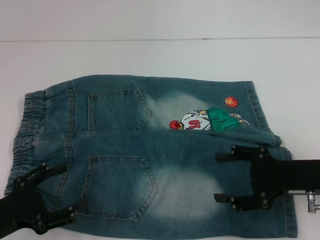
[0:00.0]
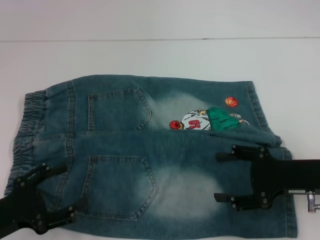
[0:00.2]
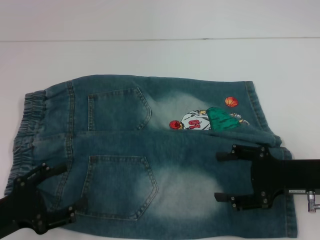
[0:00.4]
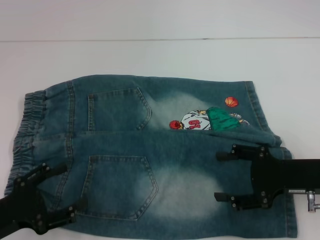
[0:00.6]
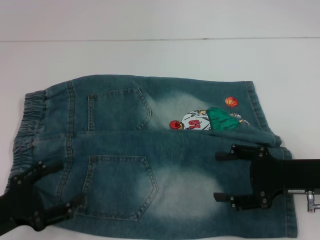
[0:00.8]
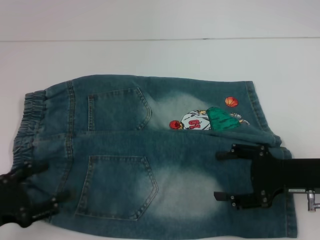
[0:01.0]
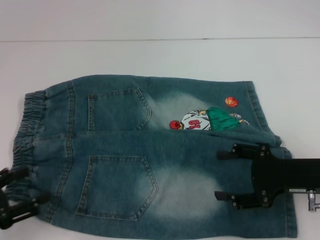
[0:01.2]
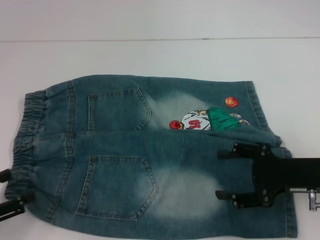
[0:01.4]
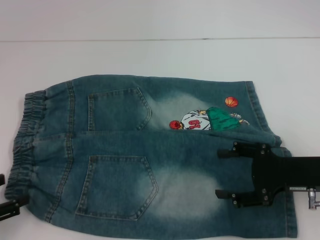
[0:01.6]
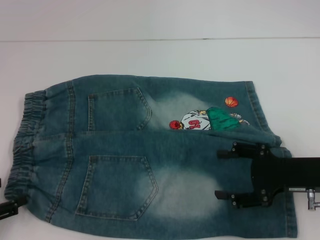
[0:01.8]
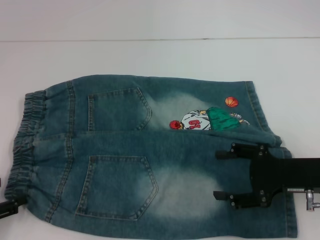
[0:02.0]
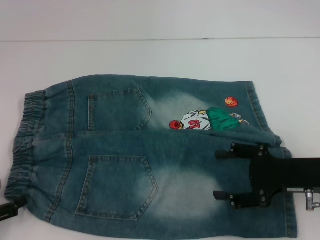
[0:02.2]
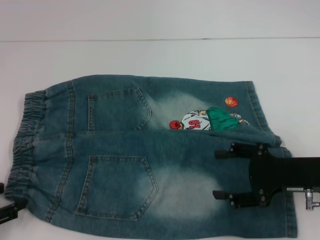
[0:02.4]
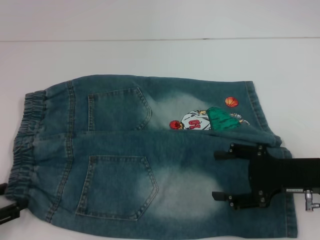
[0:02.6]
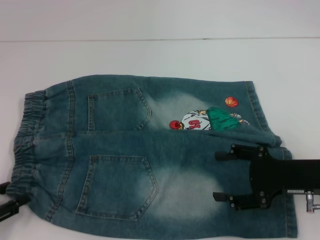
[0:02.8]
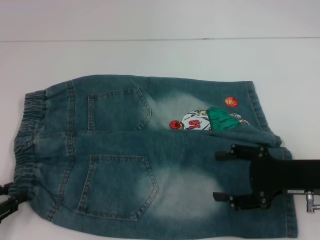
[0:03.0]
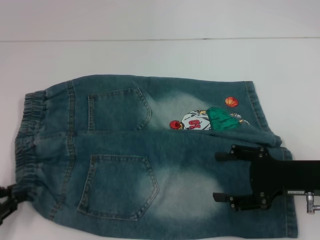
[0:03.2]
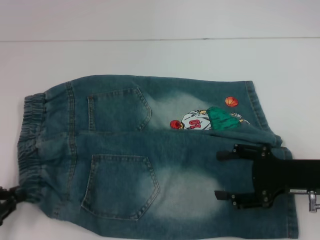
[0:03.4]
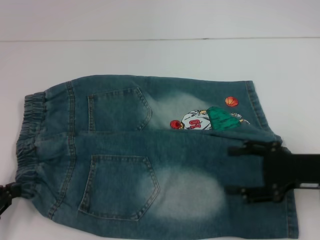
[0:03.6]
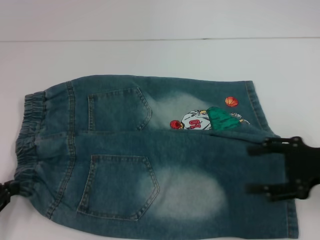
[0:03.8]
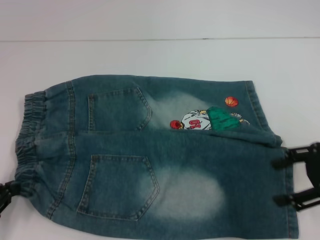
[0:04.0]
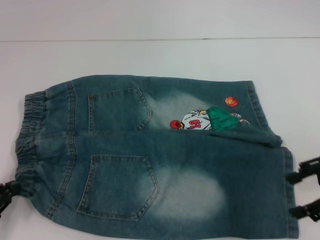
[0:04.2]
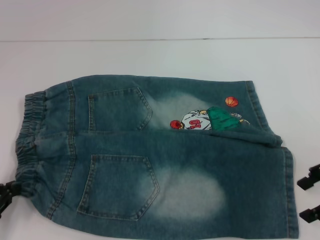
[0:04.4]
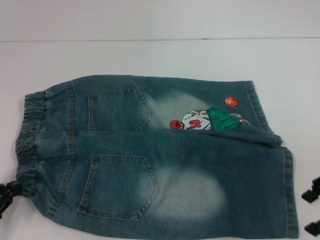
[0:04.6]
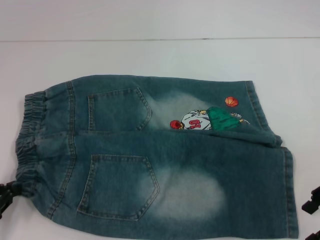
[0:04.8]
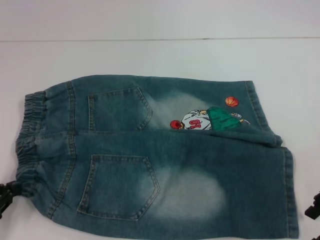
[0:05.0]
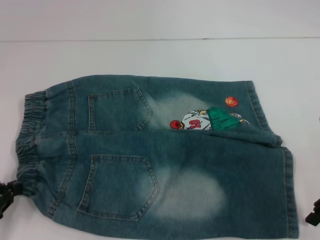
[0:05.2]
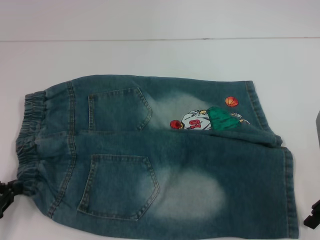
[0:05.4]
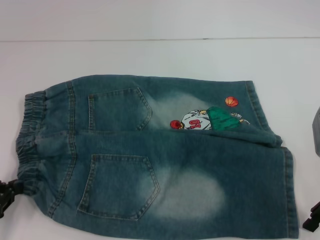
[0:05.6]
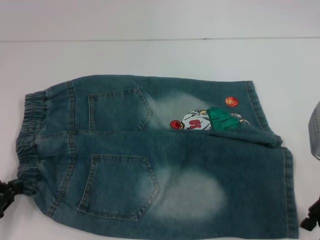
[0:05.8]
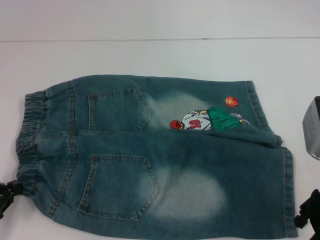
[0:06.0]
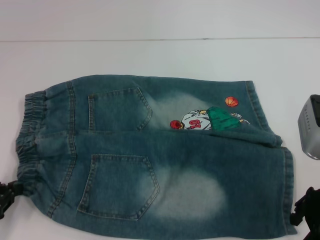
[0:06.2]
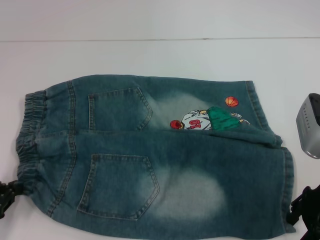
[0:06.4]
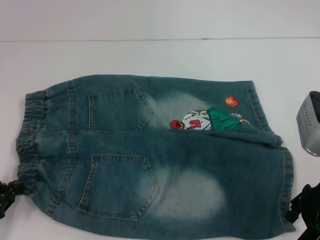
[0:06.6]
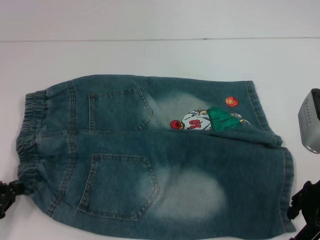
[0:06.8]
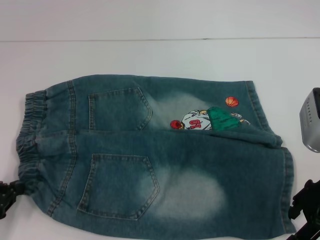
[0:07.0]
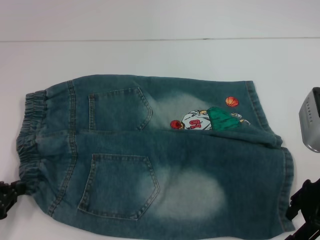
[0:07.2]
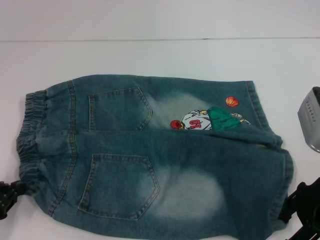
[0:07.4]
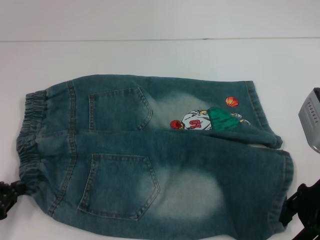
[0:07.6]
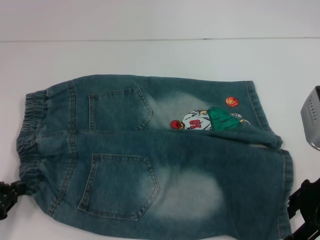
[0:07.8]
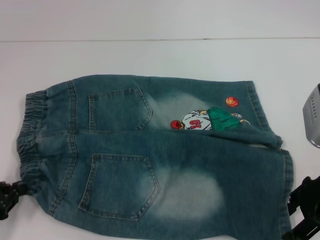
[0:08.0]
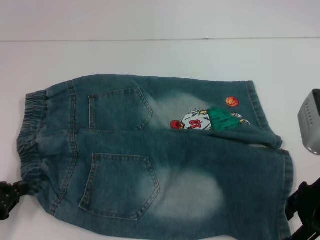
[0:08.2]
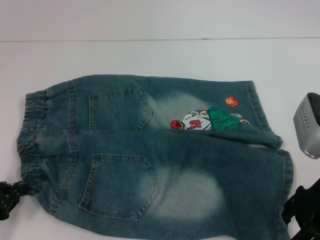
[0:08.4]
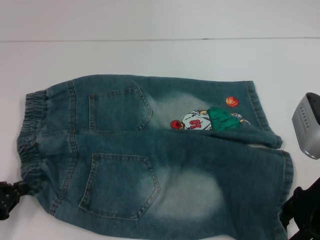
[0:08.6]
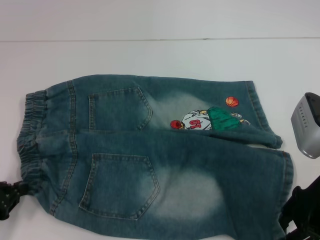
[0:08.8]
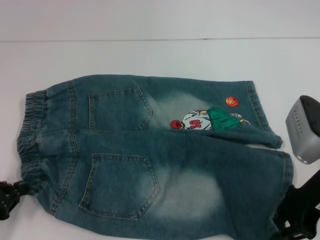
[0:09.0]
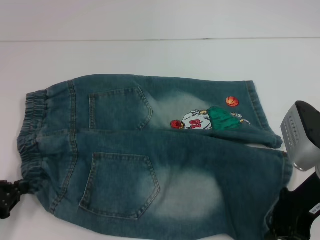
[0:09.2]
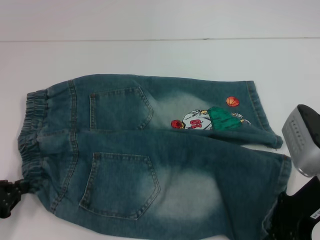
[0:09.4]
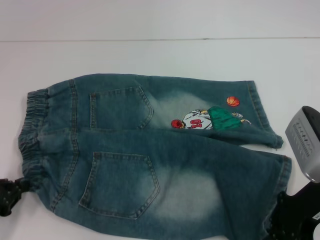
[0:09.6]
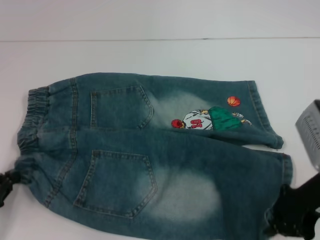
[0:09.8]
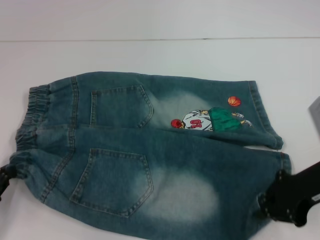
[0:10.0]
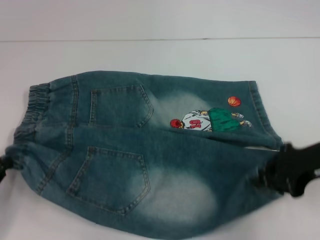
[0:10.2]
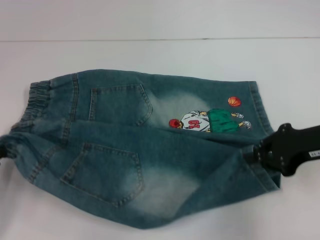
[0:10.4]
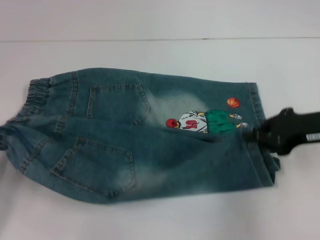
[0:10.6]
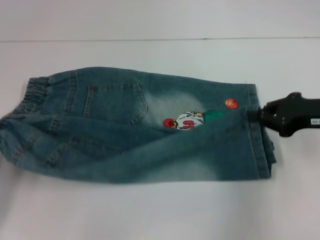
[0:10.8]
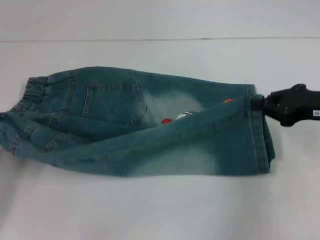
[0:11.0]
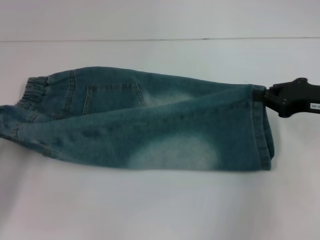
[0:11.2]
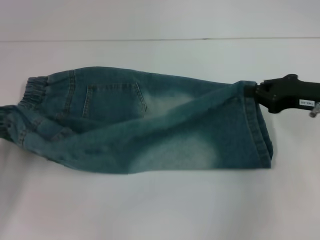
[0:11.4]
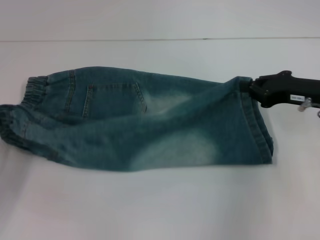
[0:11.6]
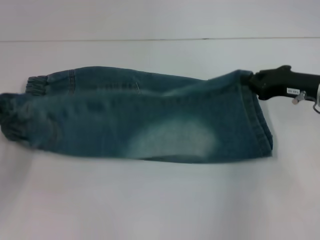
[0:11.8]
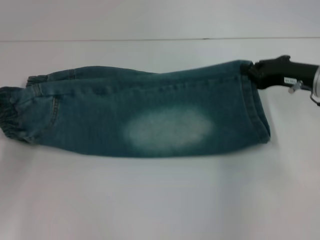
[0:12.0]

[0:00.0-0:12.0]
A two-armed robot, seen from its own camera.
Step, 0:00.0 to 0:03.4: Hold the lower left waistband with your left hand.
Step, 0:03.6 to 0:09.4: Grab the lower right pant leg with your right hand.
0:00.0 to 0:01.6: The left gripper shifts roughly 5 cm to the left.
0:01.6 to 0:03.0: The left gripper closes.
0:03.0 to 0:04.4: The right gripper is displaced upward by approximately 10 cm. Meanwhile the left gripper closes up.
0:04.4 to 0:06.0: The right gripper is displaced to the left by roughly 5 cm.
0:06.0 to 0:07.6: The grippers move only a little.
0:07.6 to 0:09.0: The right gripper closes.
0:09.0 to 0:10.4: The right gripper closes up.
0:10.4 to 0:12.0: The two grippers go roughly 10 cm forward.

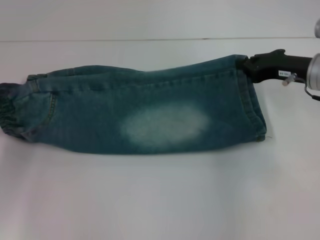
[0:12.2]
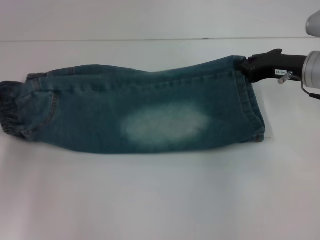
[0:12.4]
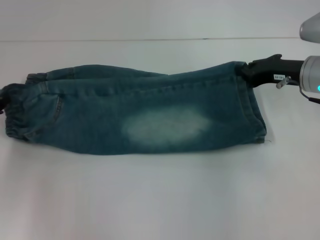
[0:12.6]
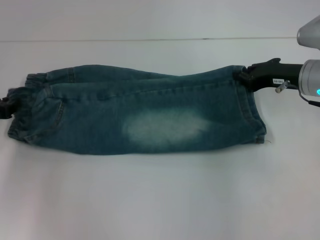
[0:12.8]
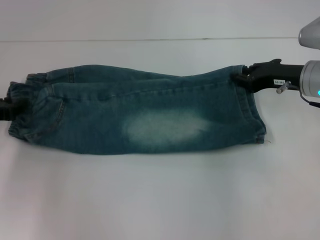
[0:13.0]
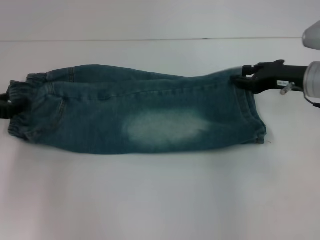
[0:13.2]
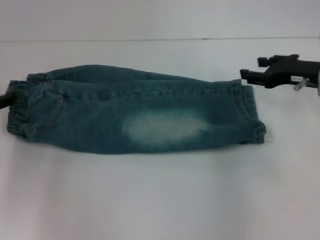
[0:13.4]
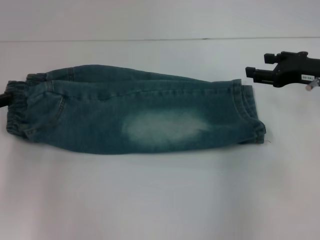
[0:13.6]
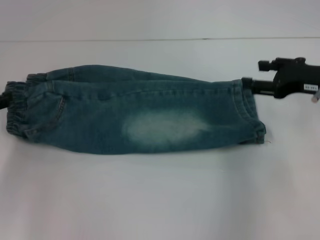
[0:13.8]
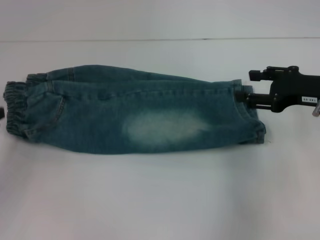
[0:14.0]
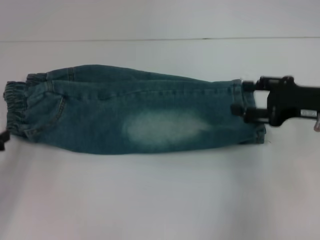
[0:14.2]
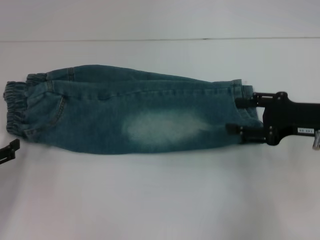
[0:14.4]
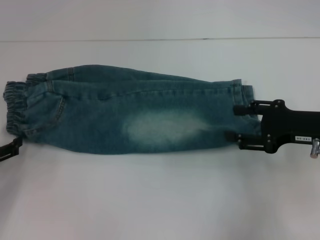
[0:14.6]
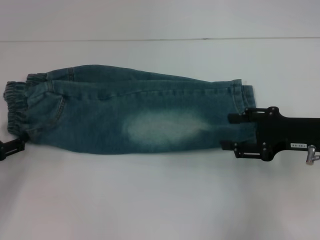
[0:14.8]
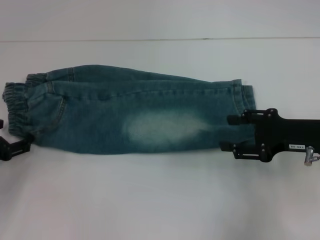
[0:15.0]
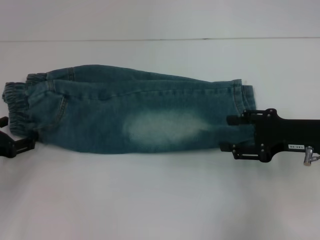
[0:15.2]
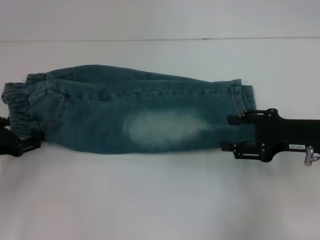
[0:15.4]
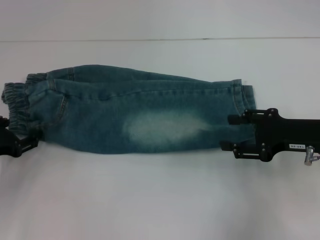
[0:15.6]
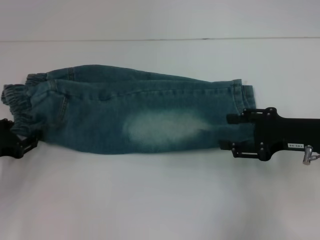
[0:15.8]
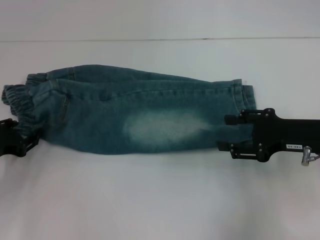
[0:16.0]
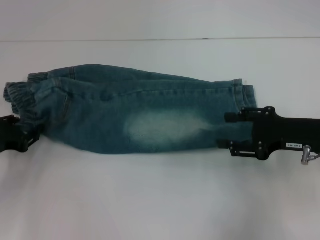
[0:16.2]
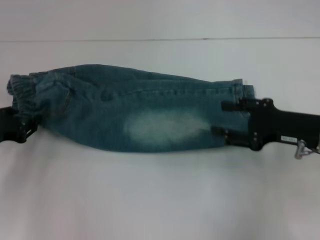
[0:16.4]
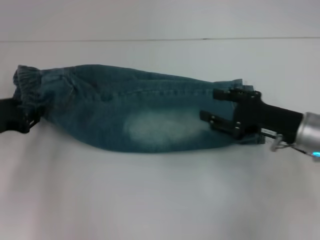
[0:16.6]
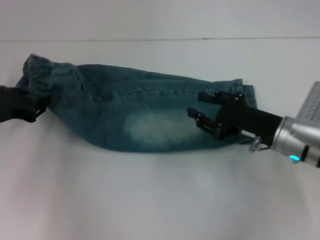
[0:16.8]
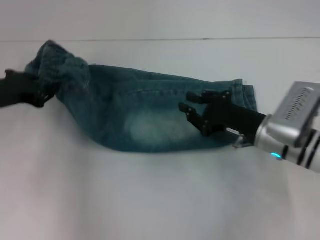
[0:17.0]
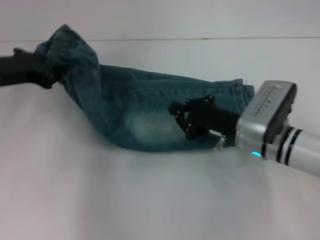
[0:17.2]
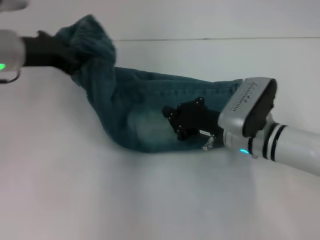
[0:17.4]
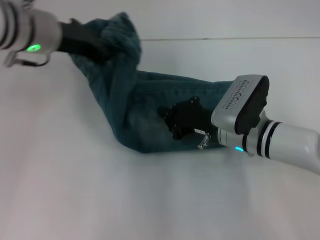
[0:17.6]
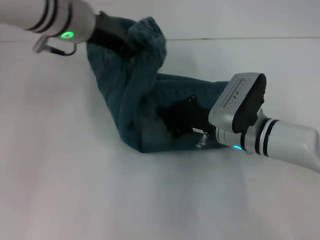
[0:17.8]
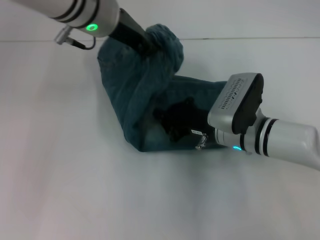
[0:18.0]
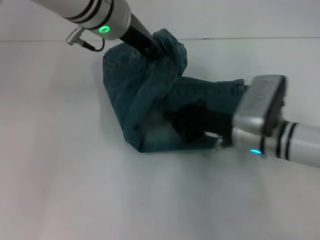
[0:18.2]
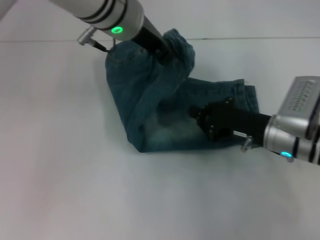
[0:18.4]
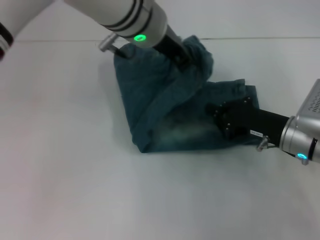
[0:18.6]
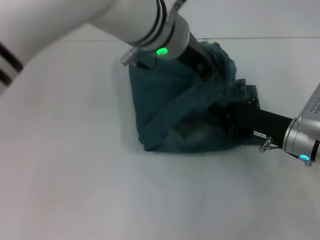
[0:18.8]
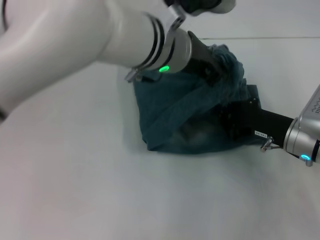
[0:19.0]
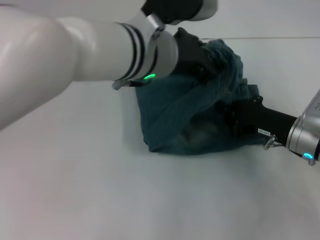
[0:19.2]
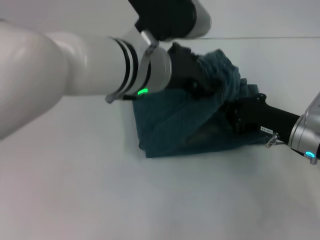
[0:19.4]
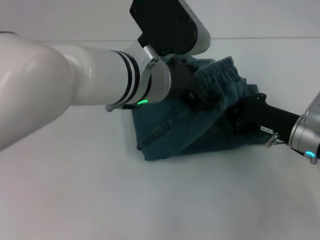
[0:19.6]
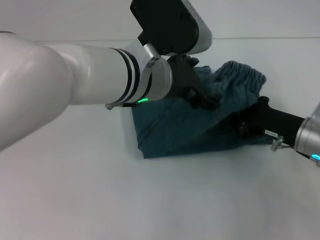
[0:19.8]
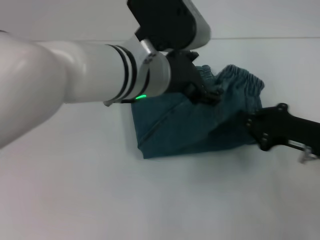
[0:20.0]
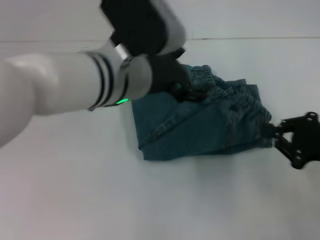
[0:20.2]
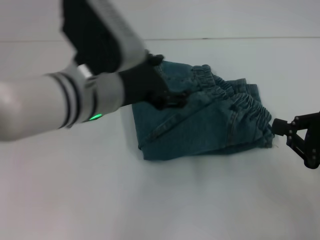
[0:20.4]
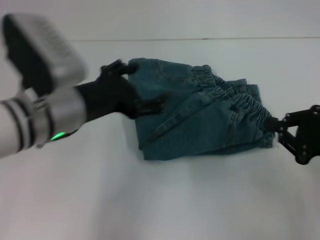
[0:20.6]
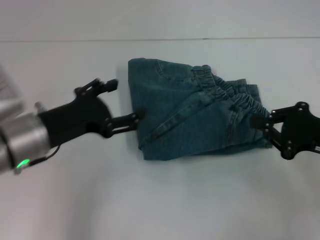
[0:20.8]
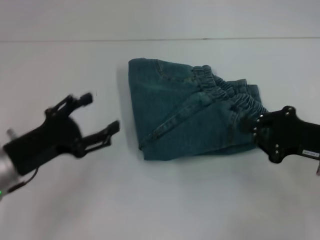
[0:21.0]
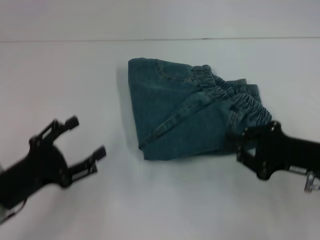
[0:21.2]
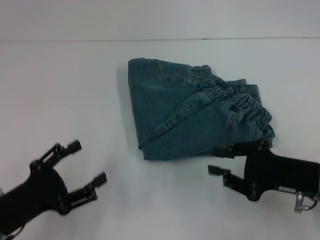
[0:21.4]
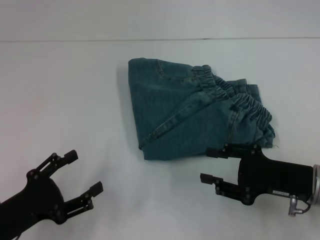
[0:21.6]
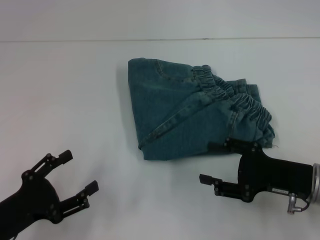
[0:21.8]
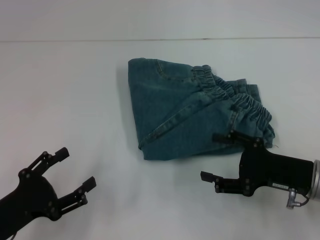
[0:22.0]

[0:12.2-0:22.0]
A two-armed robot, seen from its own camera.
Step, 0:13.4 to 0:13.8: Fold upward with your left hand.
Step, 0:14.0 to 0:15.8: Hold the waistband with your left hand.
Step, 0:16.2 to 0:18.0: Press the middle of the pants with your right hand.
Step, 0:18.2 to 0:20.2: Fold to the right with your left hand.
0:12.2 to 0:13.6: The right gripper opens up. Meanwhile the left gripper opens up.
0:13.6 to 0:15.0: The left gripper moves downward, roughly 5 cm, while the right gripper is displaced backward by roughly 5 cm.
0:15.0 to 0:16.4: The left gripper closes.
0:16.4 to 0:17.8: The left gripper shifts some 25 cm to the right, upward and forward. Meanwhile the right gripper is displaced to the left by some 15 cm, and closes its fingers.
0:17.8 to 0:19.2: The right gripper is displaced to the right by about 10 cm. Meanwhile the left gripper heads to the right and backward, covering approximately 10 cm.
0:19.2 to 0:20.6: The right gripper travels to the right, backward and upward by roughly 10 cm. The left gripper heads to the left and downward, covering some 15 cm, and opens up.
0:20.6 to 0:22.0: The left gripper is displaced downward, to the left and backward by roughly 20 cm. The right gripper is displaced to the left and downward by some 10 cm, and opens.
